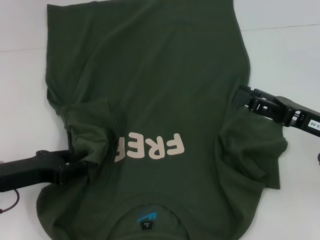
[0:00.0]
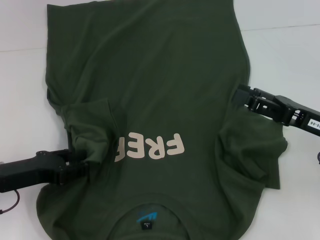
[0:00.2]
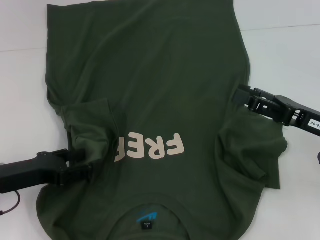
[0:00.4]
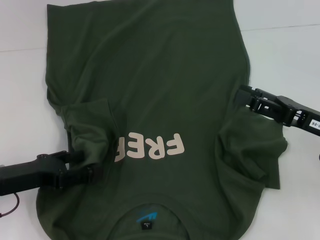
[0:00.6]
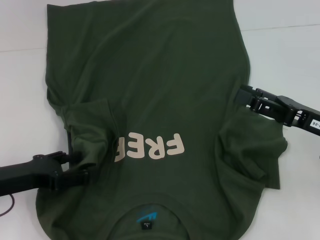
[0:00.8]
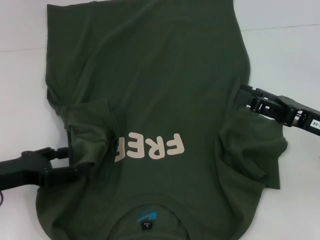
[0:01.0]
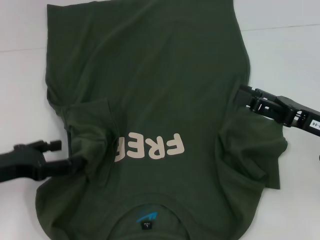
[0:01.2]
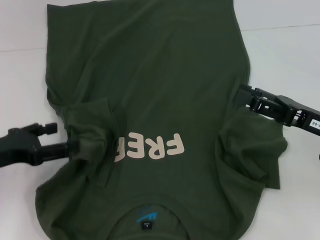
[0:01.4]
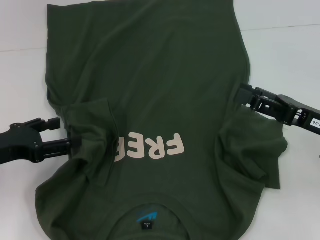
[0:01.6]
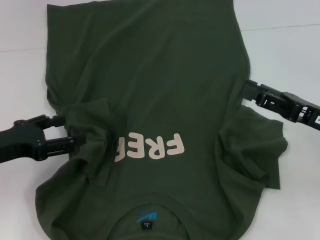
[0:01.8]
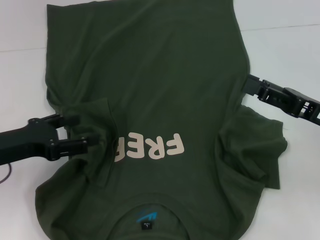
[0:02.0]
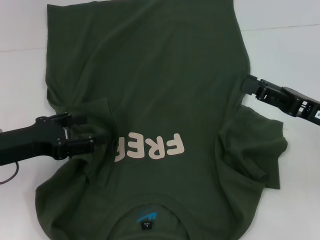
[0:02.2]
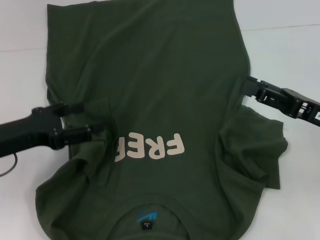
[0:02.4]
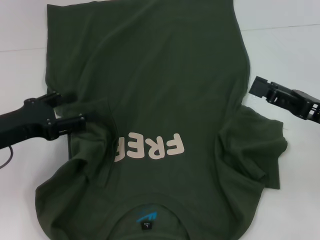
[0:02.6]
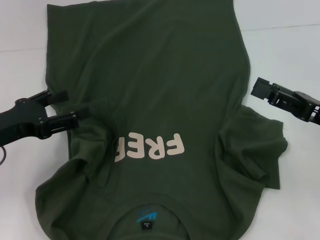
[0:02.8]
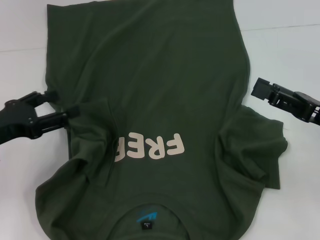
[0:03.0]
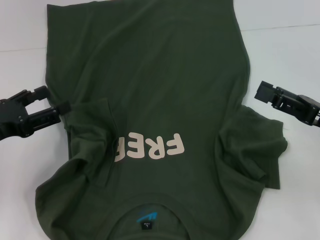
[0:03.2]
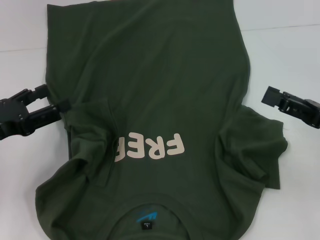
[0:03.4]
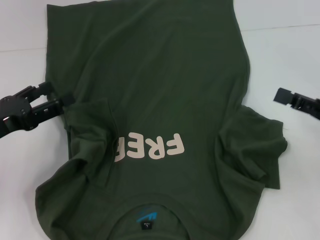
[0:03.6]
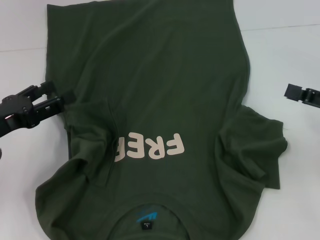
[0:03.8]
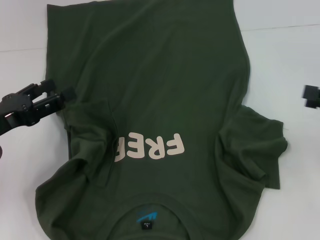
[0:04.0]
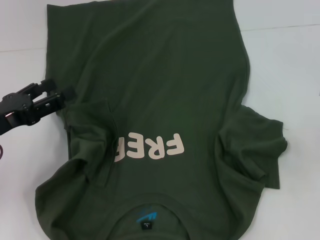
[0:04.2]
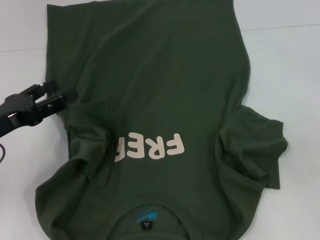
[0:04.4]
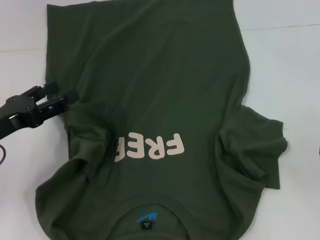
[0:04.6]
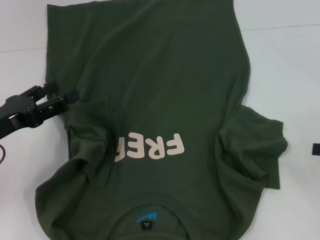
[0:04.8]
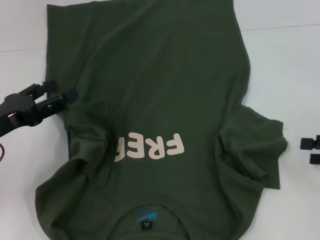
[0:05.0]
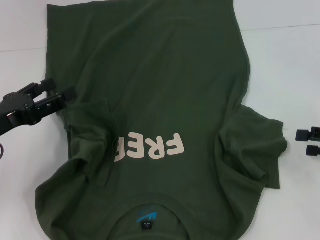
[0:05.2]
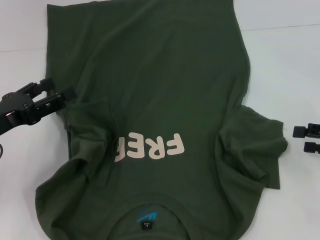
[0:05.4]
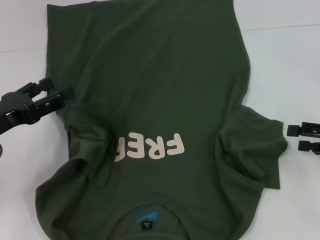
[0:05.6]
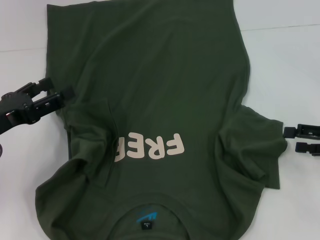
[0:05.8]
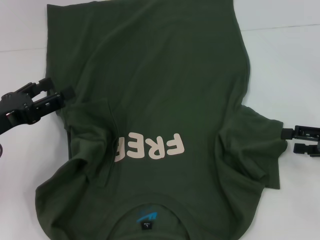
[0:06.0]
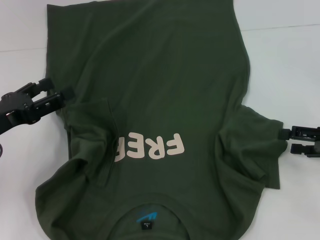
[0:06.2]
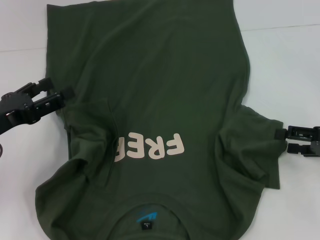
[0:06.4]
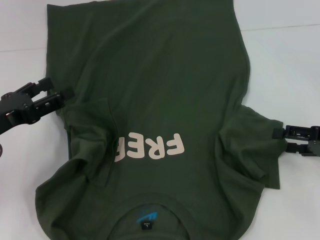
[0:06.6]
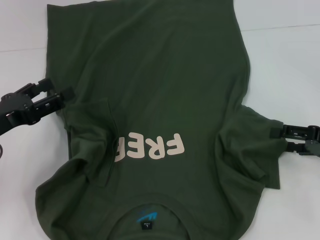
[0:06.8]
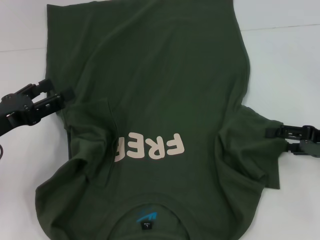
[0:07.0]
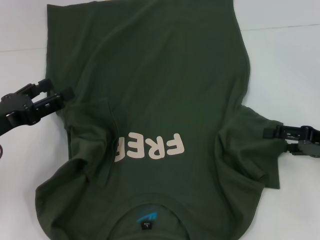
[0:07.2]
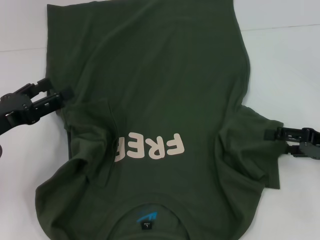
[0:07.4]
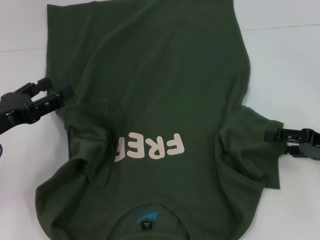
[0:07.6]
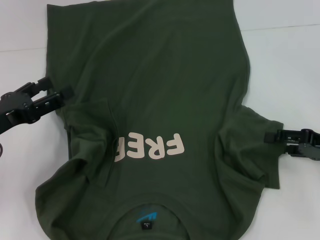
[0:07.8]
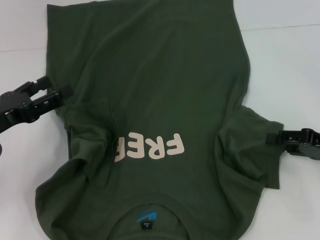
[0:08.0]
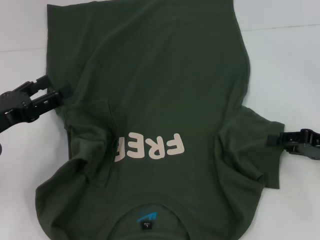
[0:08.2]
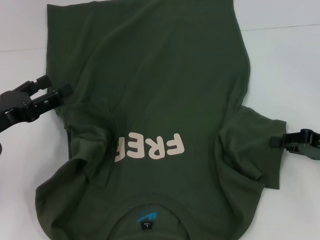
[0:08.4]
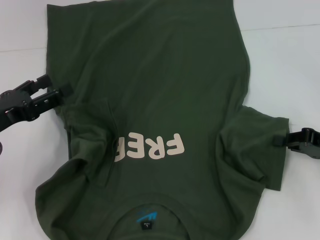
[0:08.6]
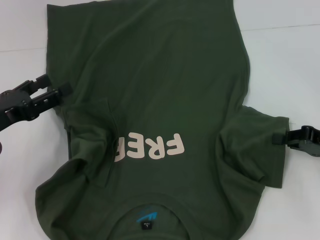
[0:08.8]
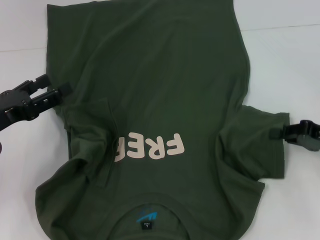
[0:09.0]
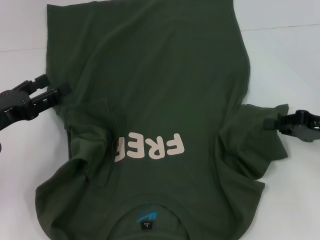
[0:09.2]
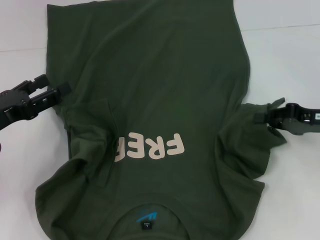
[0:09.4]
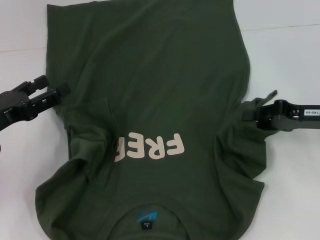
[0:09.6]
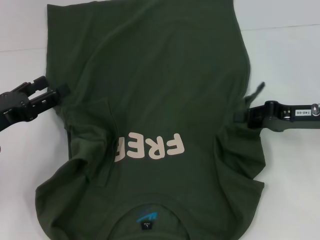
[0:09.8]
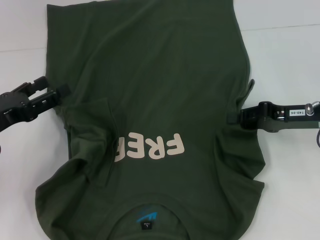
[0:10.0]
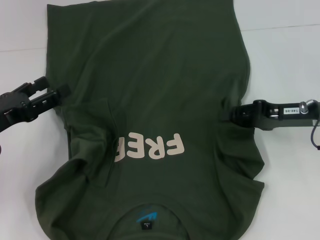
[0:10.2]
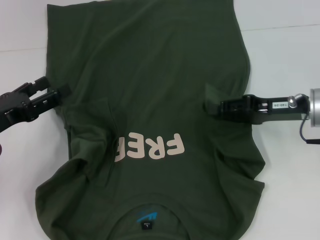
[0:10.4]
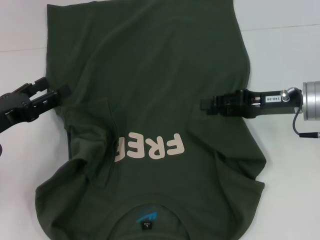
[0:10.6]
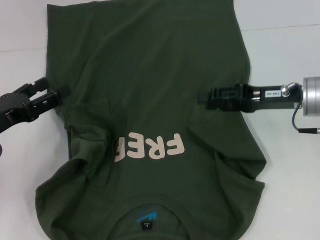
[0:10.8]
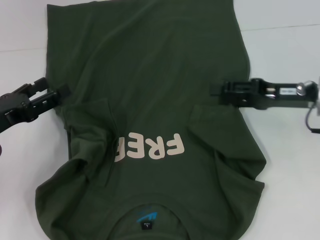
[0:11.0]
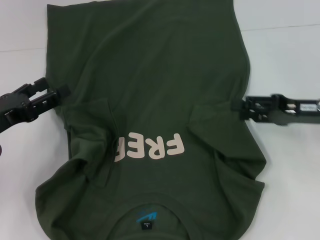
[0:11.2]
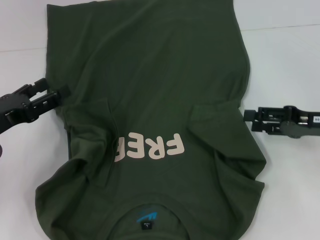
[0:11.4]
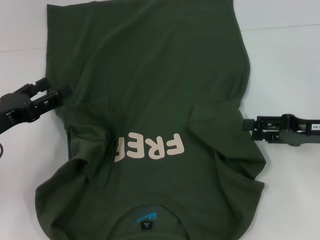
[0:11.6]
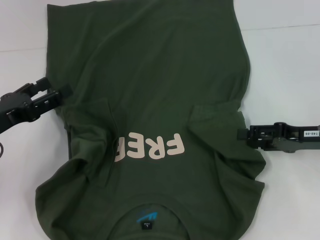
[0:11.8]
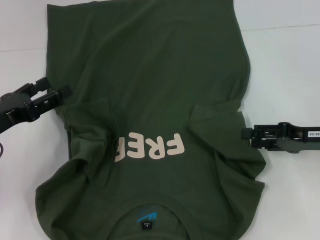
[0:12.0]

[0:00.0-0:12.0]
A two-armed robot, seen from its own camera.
Step, 0:00.0 to 0:02.8: Fold the bottom left sleeve with your left hand.
Step, 0:03.0 to 0:11.0: Fold the bottom right sleeve with your right hand.
0:00.0 to 0:01.6: The left gripper opens its fingers.
0:01.6 to 0:03.0: There are only small adjustments of the grippers.
0:03.0 to 0:04.4: The right gripper is displaced to the right by roughly 10 cm.
0:04.4 to 0:06.0: The right gripper moves downward, roughly 5 cm.
0:06.0 to 0:07.6: The grippers stay close to where they were, moving slightly.
0:07.6 to 0:09.0: The right gripper closes its fingers.
0:09.0 to 0:10.4: The right gripper goes roughly 10 cm to the left and forward.
0:10.4 to 0:12.0: The right gripper goes about 5 cm to the right, and opens.

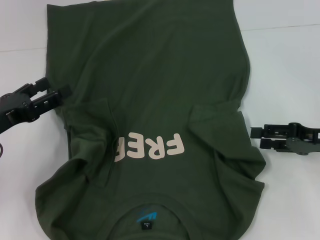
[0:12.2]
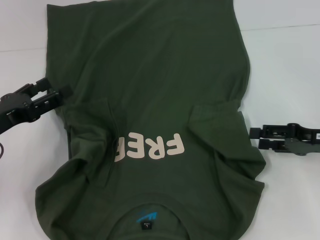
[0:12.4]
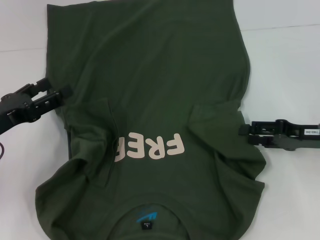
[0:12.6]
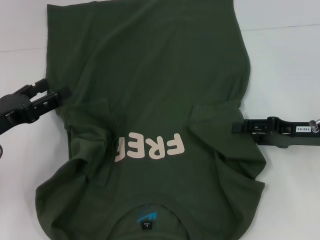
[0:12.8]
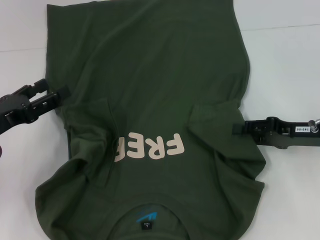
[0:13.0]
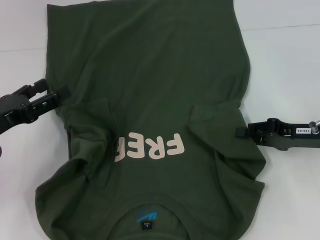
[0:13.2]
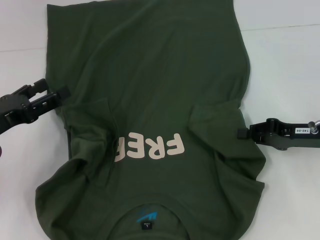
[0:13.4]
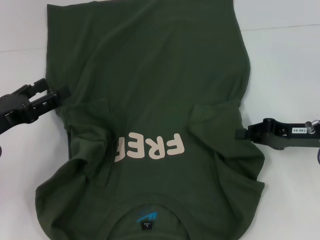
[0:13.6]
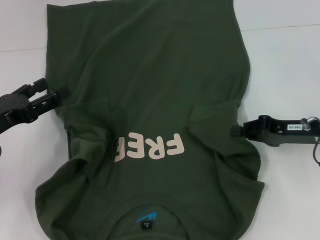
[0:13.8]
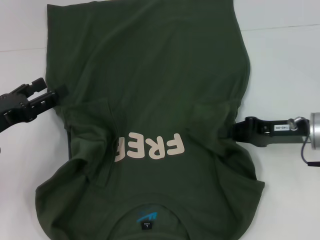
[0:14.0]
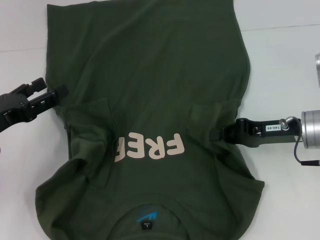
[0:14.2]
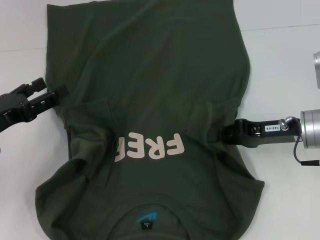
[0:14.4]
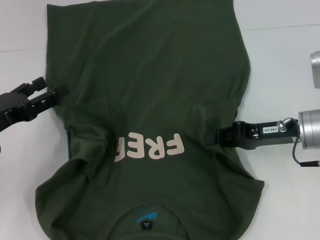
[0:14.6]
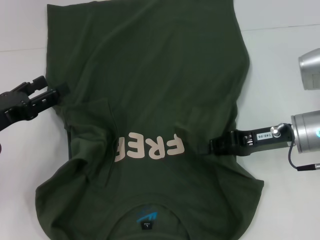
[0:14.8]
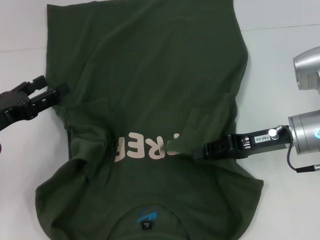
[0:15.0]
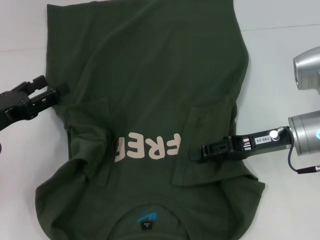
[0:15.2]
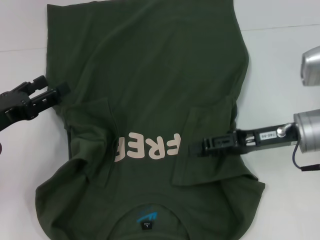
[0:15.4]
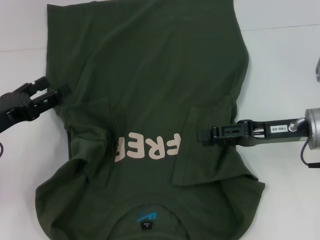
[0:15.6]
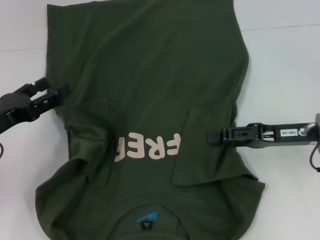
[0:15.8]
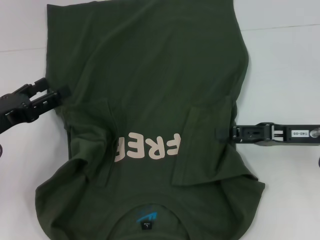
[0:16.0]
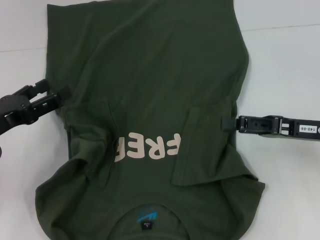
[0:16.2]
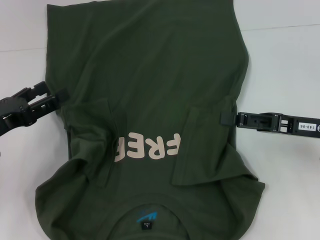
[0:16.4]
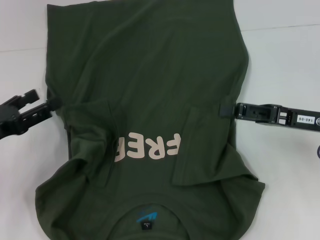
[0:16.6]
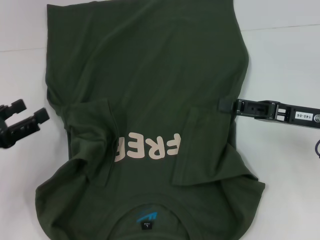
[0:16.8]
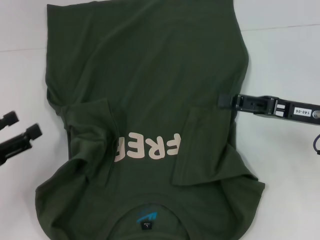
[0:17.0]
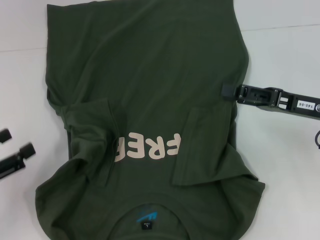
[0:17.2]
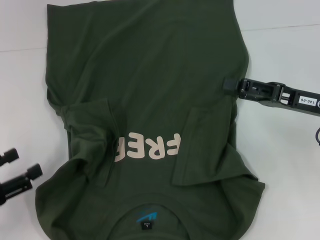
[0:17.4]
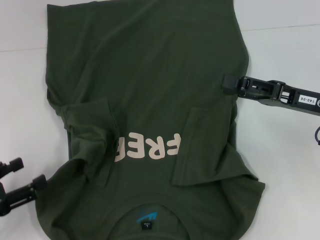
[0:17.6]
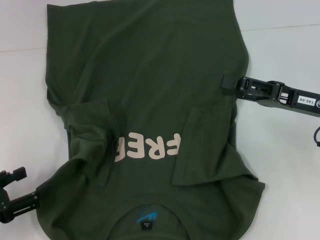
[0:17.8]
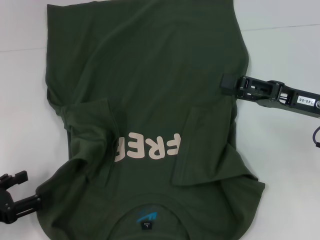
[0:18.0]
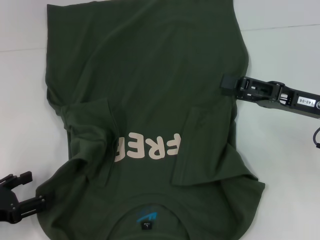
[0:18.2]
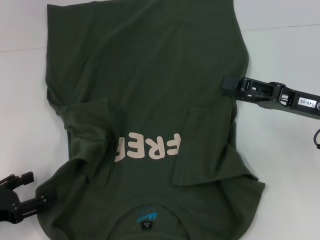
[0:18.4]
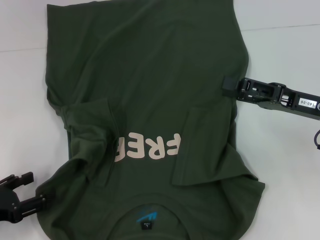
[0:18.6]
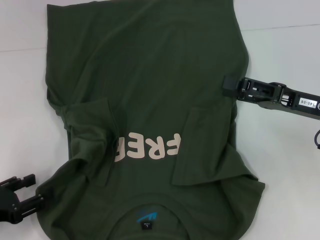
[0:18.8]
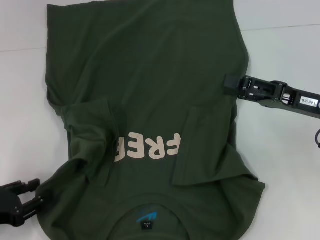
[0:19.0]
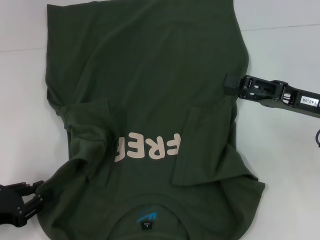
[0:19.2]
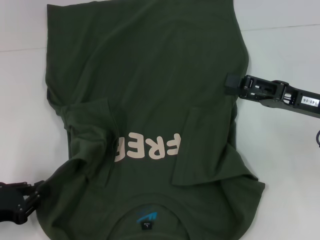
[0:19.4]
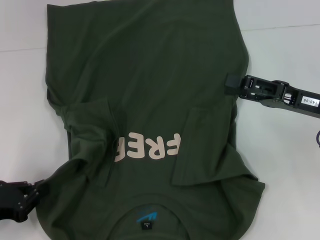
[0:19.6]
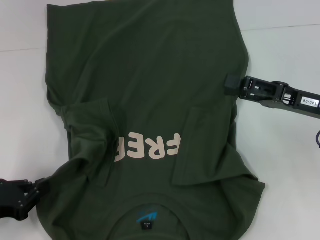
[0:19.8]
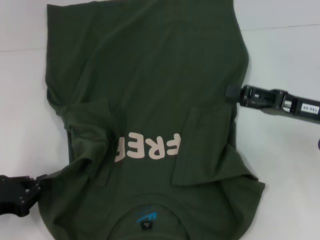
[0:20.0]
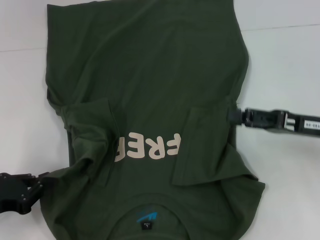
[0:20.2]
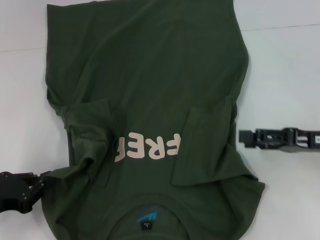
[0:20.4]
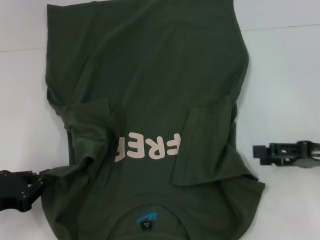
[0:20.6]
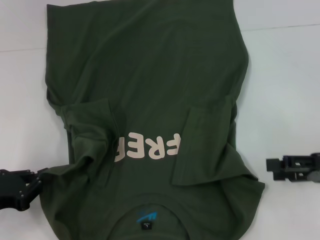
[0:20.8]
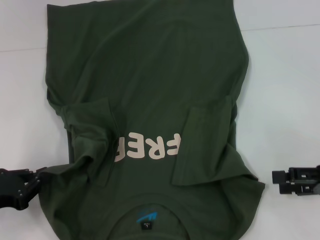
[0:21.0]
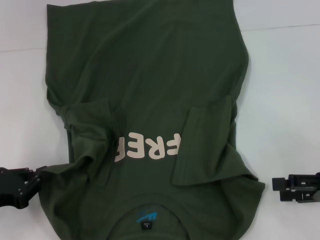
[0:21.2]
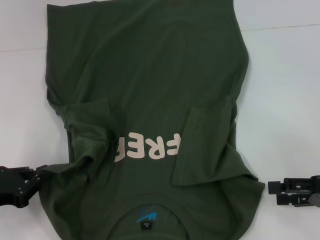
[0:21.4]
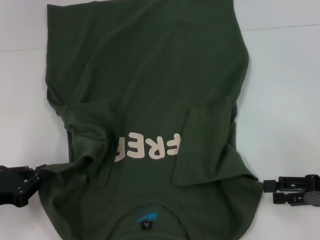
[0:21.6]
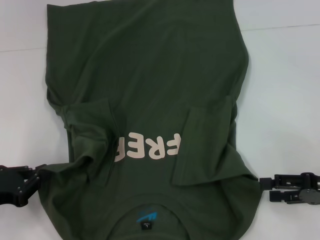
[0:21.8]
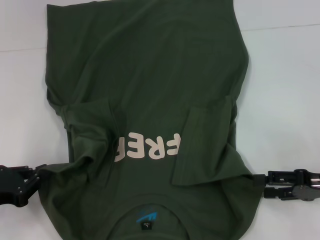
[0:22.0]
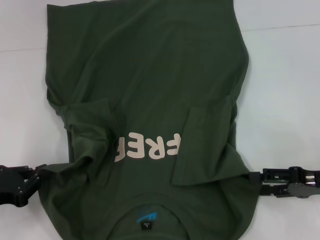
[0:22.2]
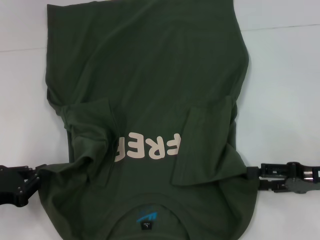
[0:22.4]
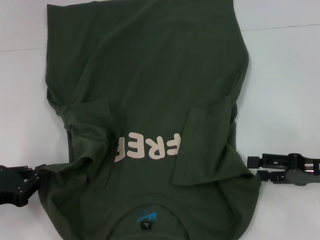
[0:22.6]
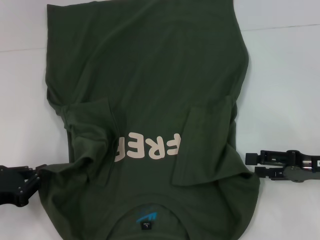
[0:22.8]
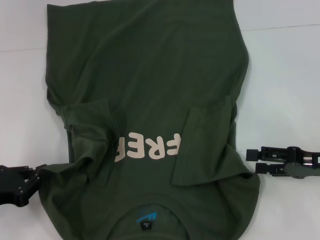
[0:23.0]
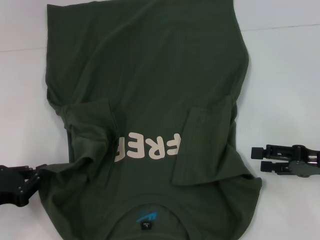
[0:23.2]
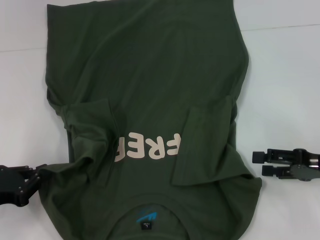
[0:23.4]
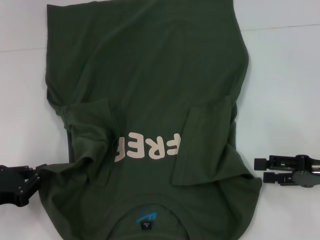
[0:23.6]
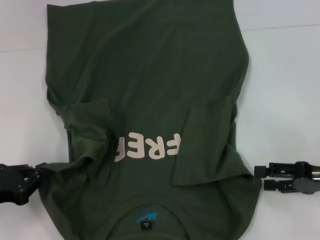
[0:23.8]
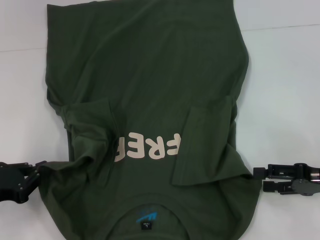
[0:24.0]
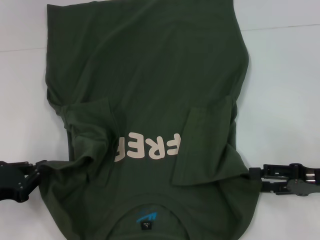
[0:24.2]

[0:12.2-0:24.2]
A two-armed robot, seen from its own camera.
Step, 0:12.2 to 0:19.8: Grab the bottom left corner with your left hand.
0:12.2 to 0:13.8: The right gripper closes its fingers.
0:13.8 to 0:15.2: The right gripper goes about 5 cm to the left.
0:15.2 to 0:16.6: The right gripper changes place by roughly 5 cm, and opens its fingers.
0:16.6 to 0:18.2: The left gripper moves backward, some 5 cm.
0:18.2 to 0:19.8: The left gripper closes.
0:19.8 to 0:21.2: The right gripper travels backward and to the right by some 10 cm.
0:21.2 to 0:22.6: There are only small adjustments of the grippers.
0:22.6 to 0:24.2: The two grippers keep their place.
